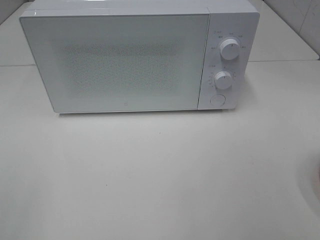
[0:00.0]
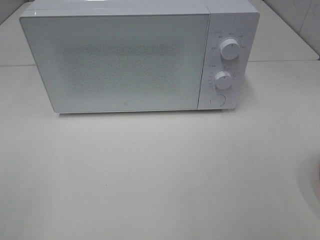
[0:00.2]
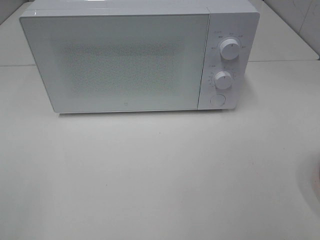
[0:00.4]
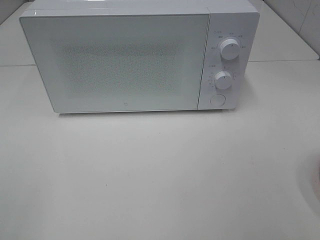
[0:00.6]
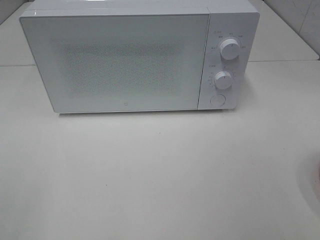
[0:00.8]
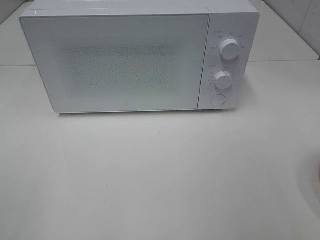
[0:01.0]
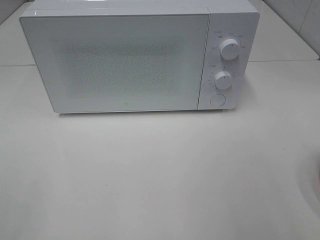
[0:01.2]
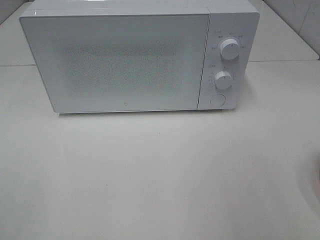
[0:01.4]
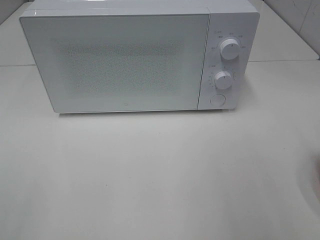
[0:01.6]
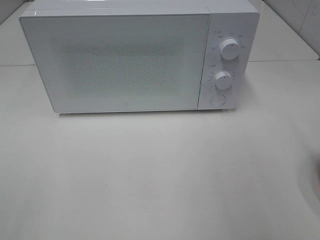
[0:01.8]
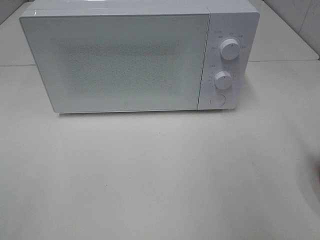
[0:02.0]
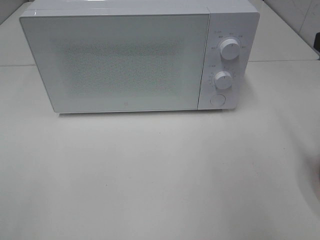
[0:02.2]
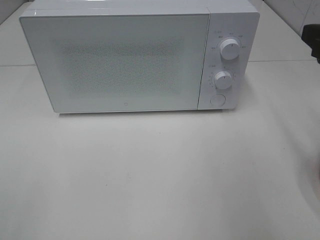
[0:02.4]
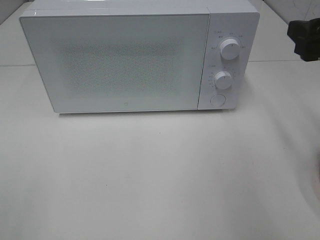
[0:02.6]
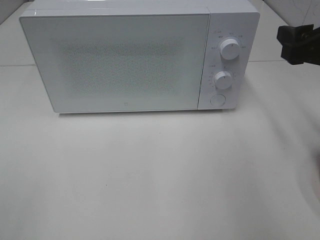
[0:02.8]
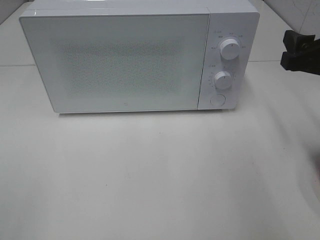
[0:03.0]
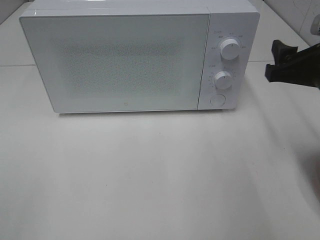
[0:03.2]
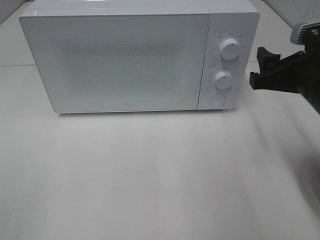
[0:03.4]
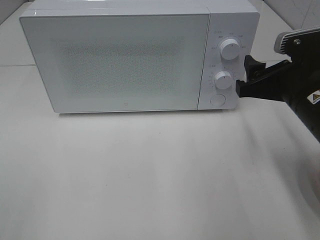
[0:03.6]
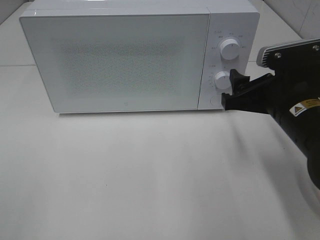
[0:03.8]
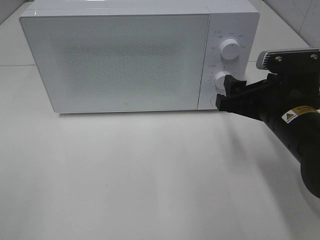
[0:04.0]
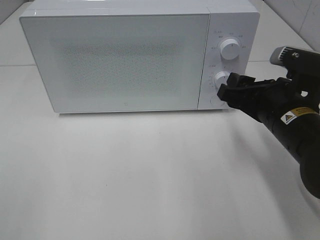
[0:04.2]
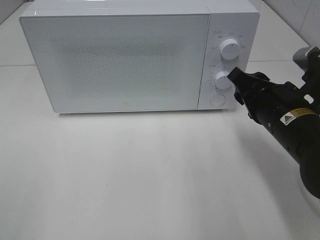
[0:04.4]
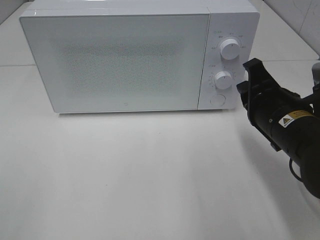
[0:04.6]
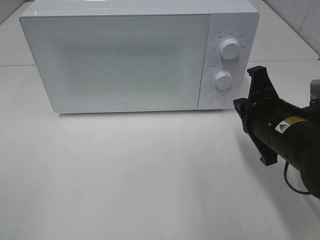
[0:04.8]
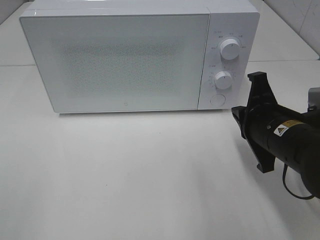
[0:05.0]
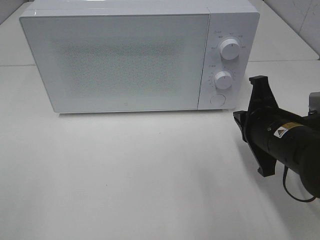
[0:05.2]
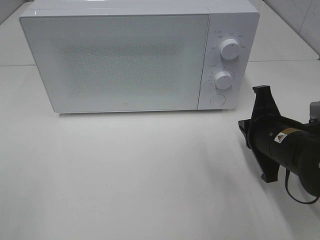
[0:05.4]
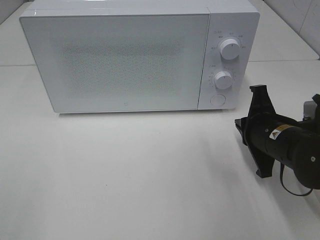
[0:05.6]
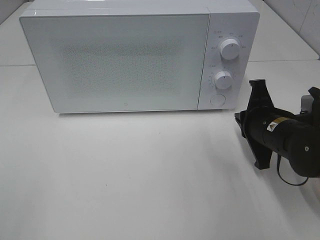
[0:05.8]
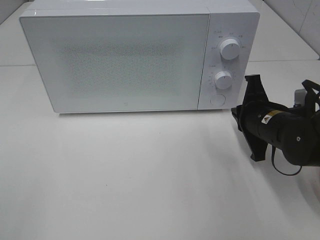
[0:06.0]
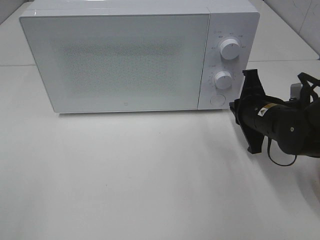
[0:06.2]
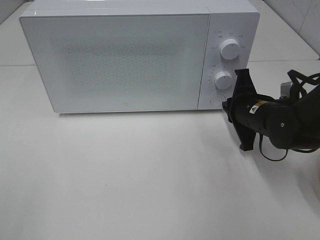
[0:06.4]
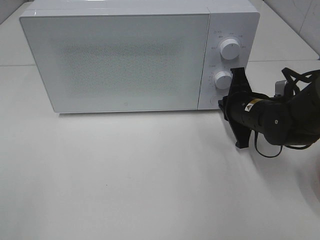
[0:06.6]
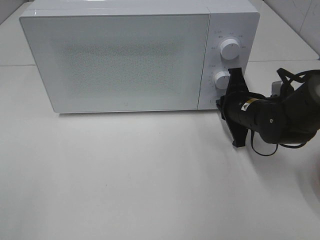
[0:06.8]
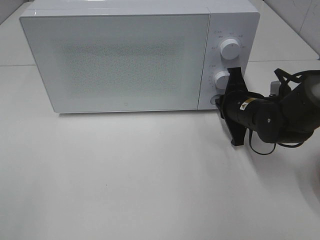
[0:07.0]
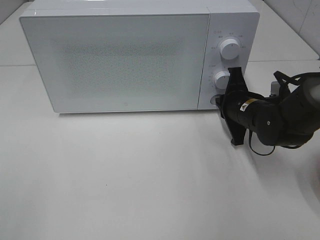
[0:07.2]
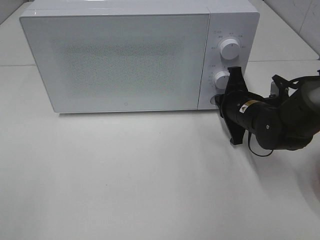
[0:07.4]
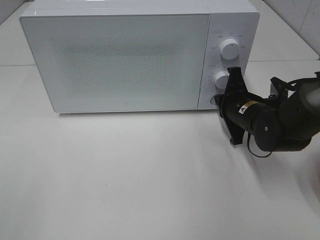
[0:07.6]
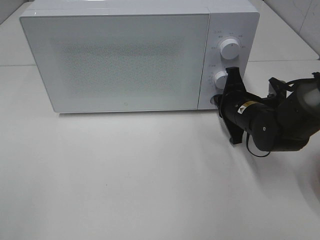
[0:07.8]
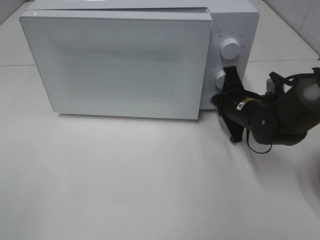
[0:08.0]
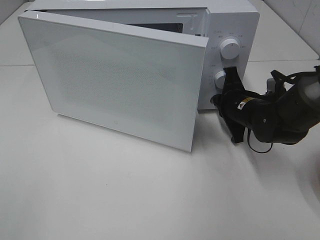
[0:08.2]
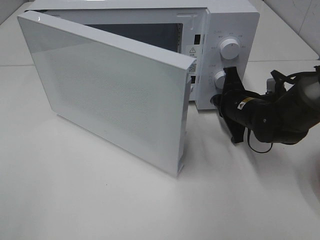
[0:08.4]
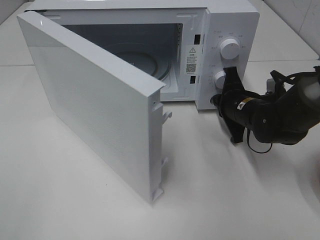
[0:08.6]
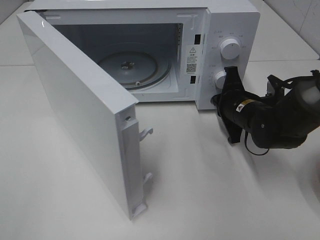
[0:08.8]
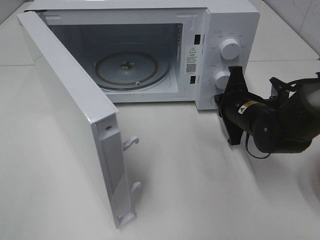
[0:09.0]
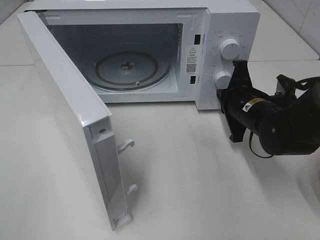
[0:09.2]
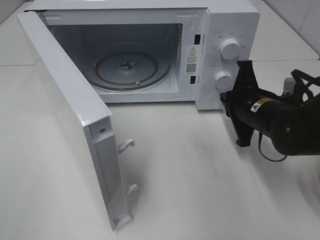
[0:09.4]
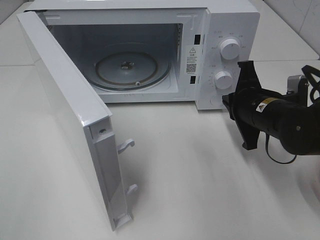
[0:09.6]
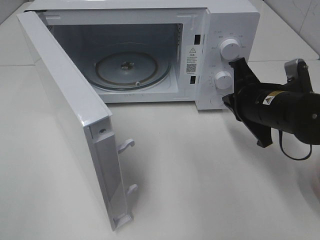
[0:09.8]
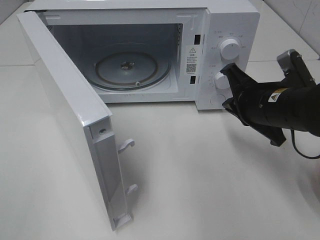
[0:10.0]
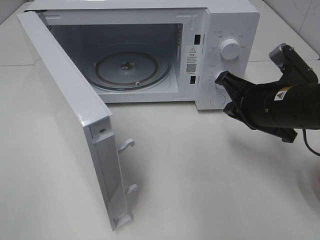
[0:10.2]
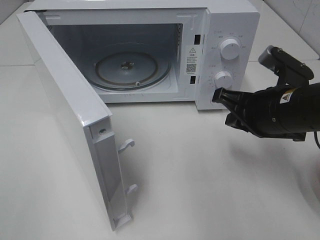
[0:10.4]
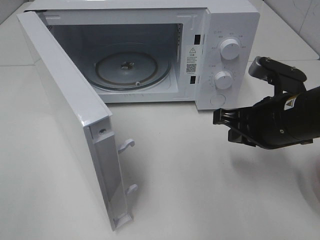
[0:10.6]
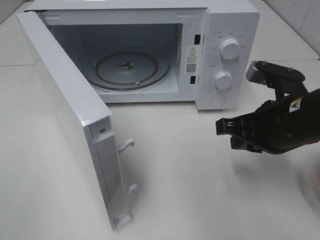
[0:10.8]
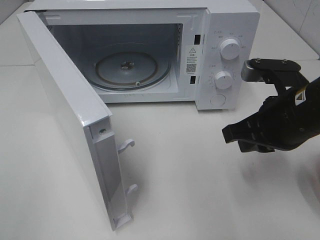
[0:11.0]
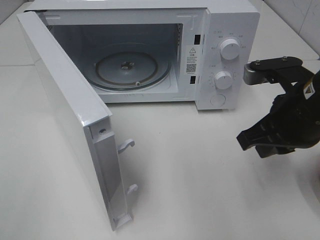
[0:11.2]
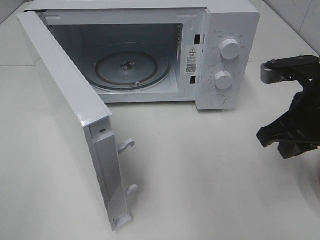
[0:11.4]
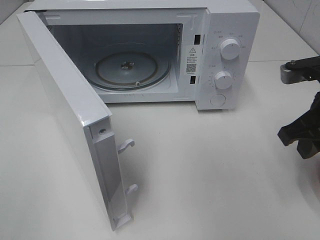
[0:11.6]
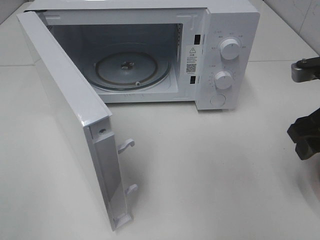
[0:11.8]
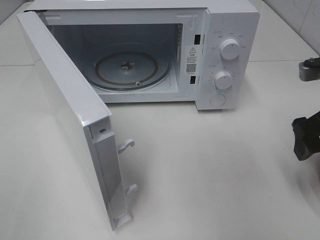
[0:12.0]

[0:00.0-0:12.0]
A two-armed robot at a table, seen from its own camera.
Task of the whole recording: Heat the burger.
Step, 0:00.0 to 0:09.0: Right hand: press the switch.
0:01.6 to 0:03.0: The right gripper heads forward and downward, covering some 15 cm.
0:03.0 to 0:04.4: The right gripper moves to the left and downward, approximately 10 cm, and closes.
0:04.4 to 0:06.0: The right gripper travels downward and forward by roughly 10 cm, and closes its fingers.
0:06.0 to 0:07.6: The right gripper moves forward, about 5 cm.
0:09.0 to 0:10.4: The right gripper heads backward and upward, covering roughly 10 cm.
0:10.4 to 0:12.0: The right gripper shifts about 10 cm to the right, and opens up.

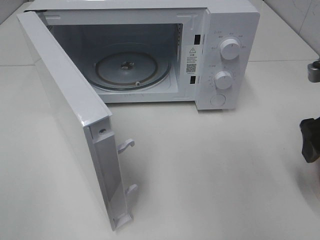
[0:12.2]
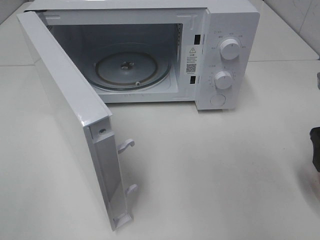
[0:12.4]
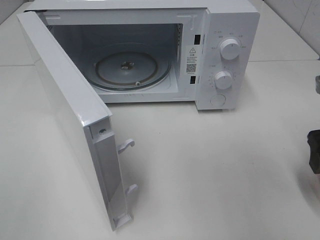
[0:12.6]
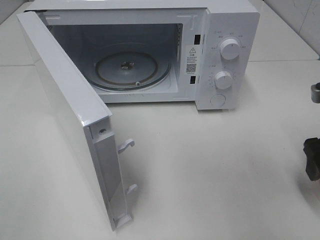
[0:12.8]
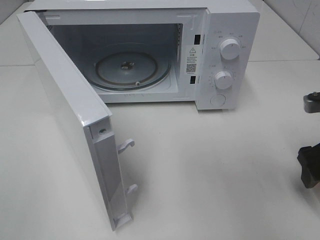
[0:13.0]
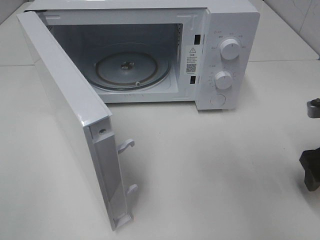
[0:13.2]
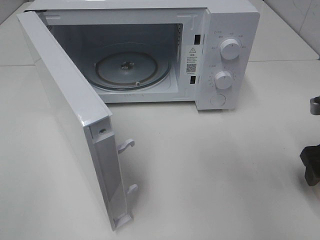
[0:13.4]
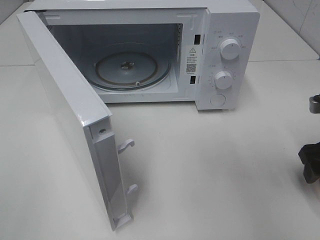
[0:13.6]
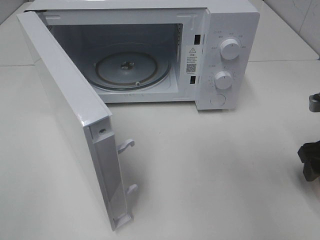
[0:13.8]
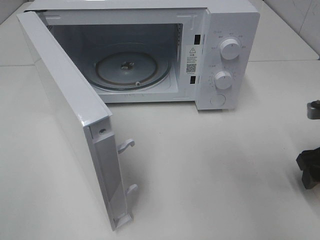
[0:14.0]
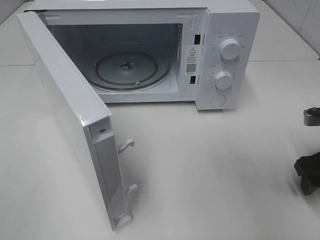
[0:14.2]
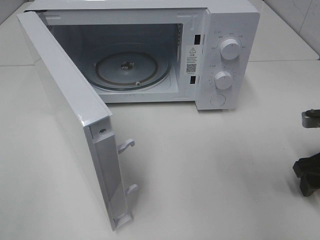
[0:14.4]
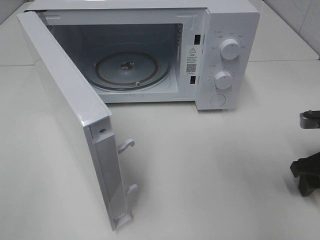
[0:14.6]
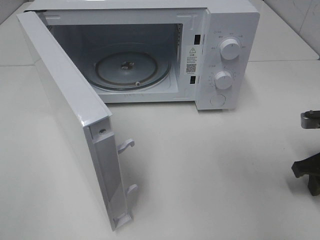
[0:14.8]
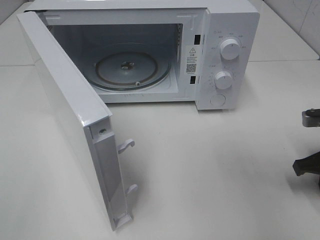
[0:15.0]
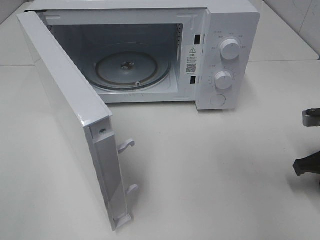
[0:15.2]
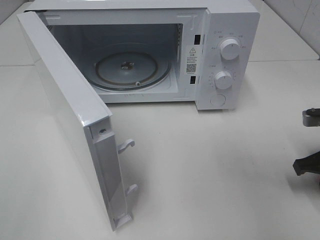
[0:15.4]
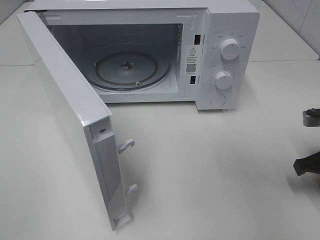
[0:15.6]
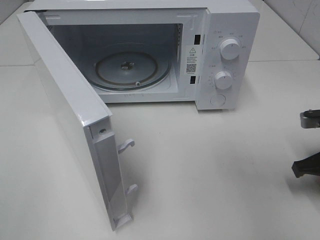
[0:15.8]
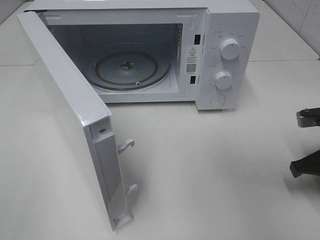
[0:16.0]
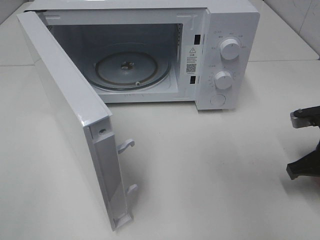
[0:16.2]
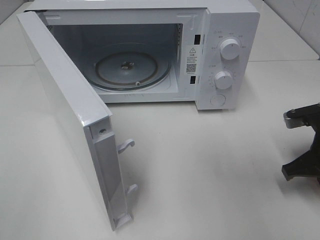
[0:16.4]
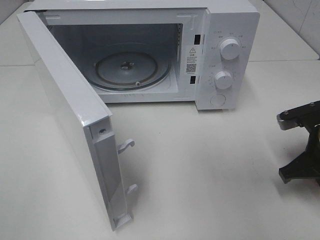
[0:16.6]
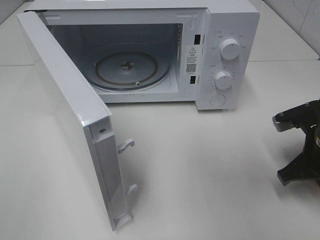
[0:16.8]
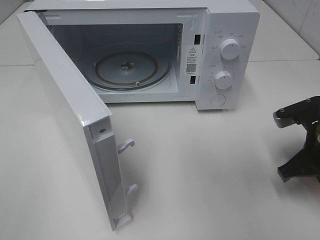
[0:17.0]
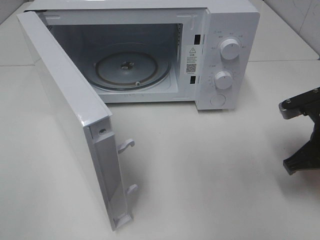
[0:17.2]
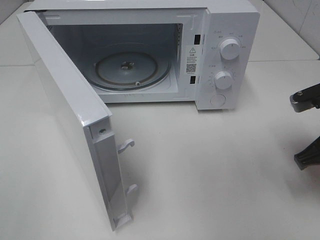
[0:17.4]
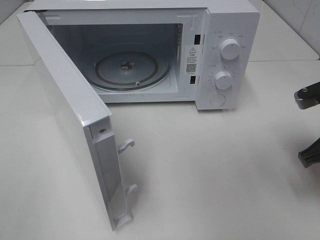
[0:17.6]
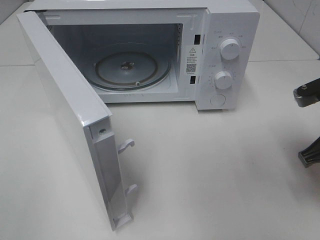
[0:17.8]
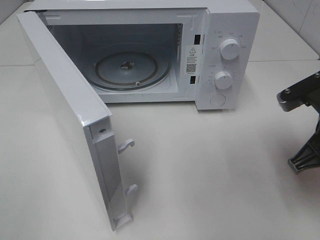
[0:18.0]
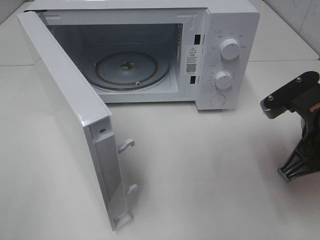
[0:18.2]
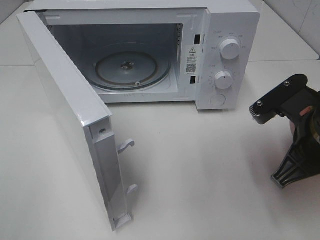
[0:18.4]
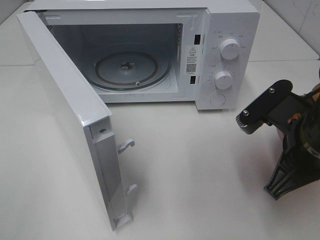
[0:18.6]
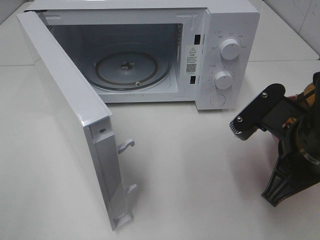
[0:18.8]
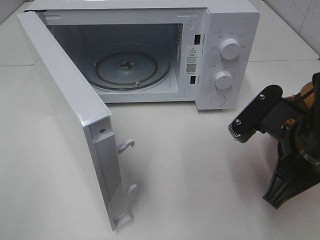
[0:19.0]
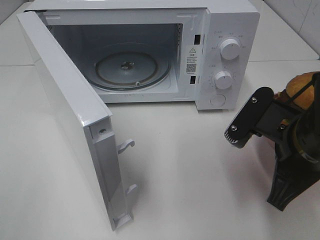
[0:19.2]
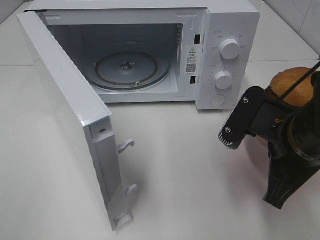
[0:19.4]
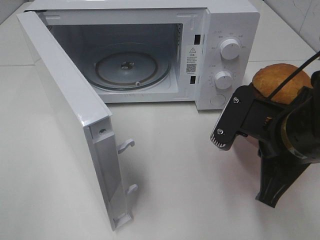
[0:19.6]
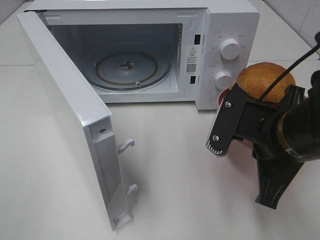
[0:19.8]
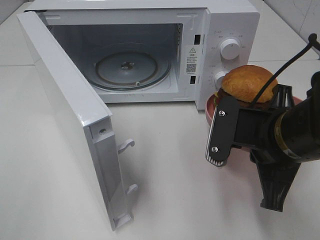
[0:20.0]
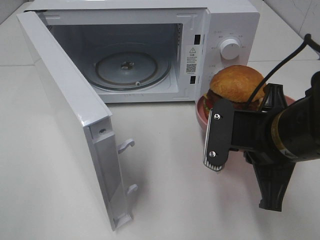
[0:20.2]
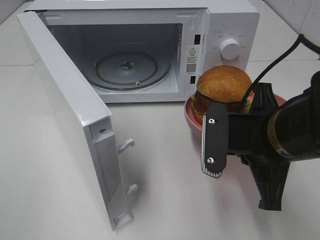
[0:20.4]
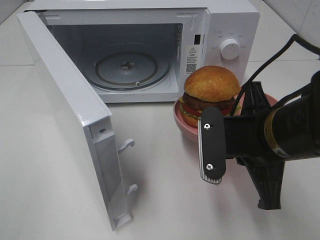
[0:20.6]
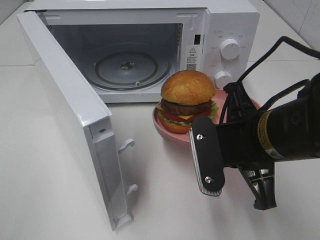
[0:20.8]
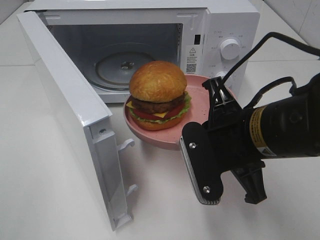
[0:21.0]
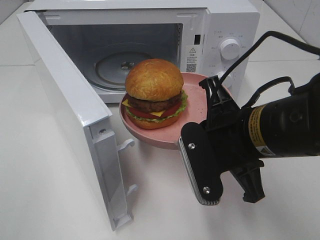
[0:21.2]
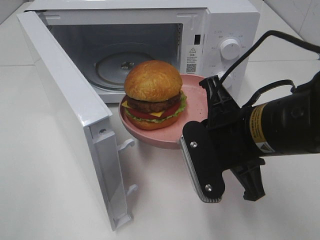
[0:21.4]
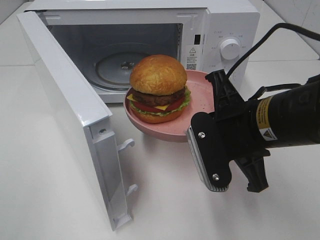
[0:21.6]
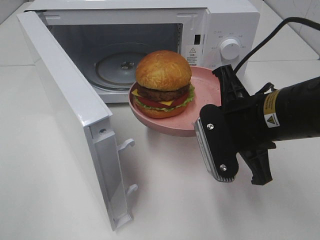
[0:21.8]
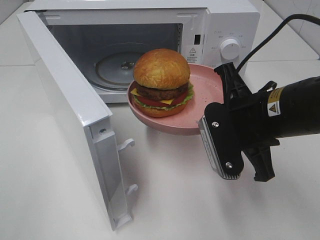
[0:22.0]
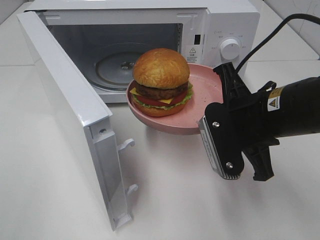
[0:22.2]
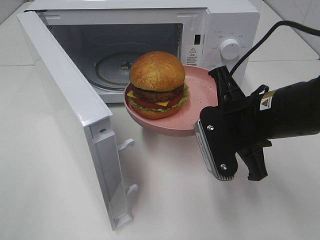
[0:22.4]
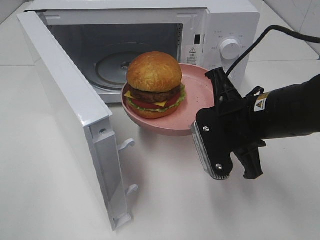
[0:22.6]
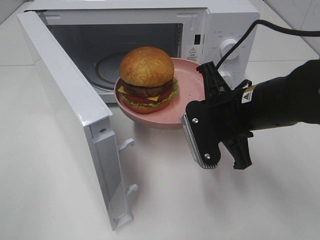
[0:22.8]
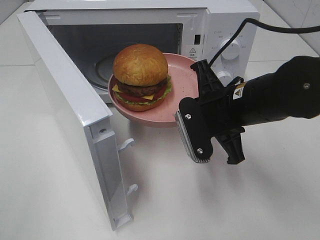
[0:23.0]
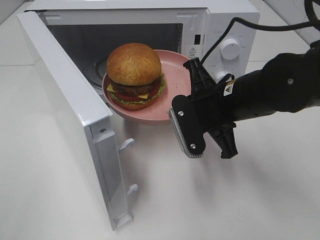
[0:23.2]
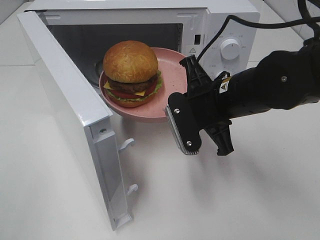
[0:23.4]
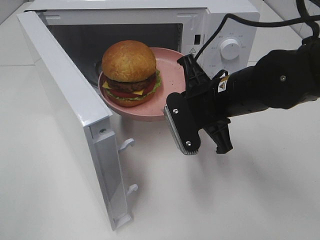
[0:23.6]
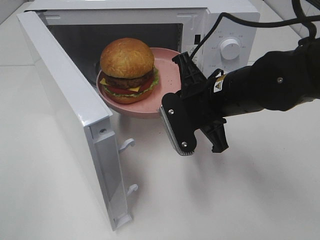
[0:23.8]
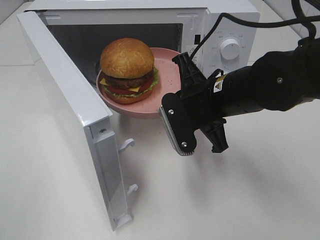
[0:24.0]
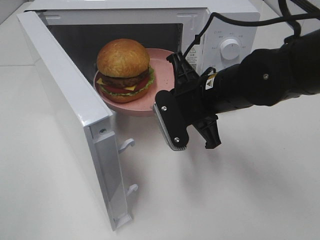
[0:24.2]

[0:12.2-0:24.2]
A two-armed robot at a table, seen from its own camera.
Task of the whole recording: Heat the burger.
Step, 0:12.2 to 0:16.0: Right hand: grab the plate with the hamburger.
0:12.2 to 0:13.8: The right gripper heads downward, covering about 5 cm.
0:13.8 to 0:15.2: The right gripper closes up.
0:15.2 to 0:16.6: The grippers make only small movements.
0:16.6 to 0:18.2: The right gripper heads upward and to the left, covering some 10 cm.
0:18.2 to 0:19.8: The right gripper heads to the left, covering some 5 cm.
0:21.2 to 0:22.6: The right gripper shifts by some 5 cm.
0:22.6 to 0:24.2: The right gripper heads forward, covering about 5 cm.
